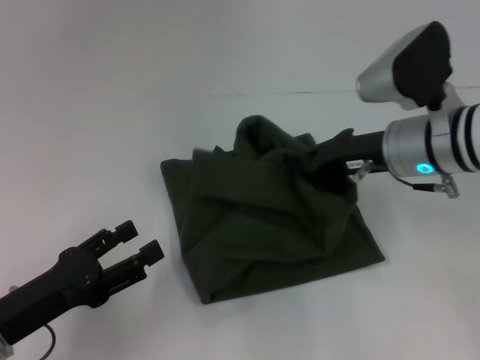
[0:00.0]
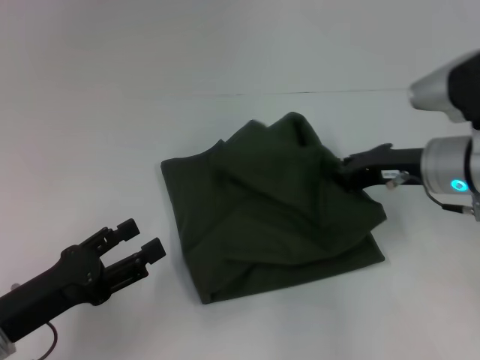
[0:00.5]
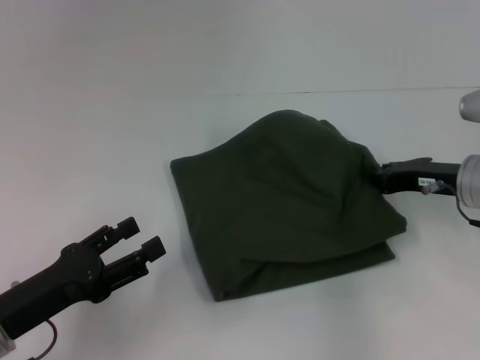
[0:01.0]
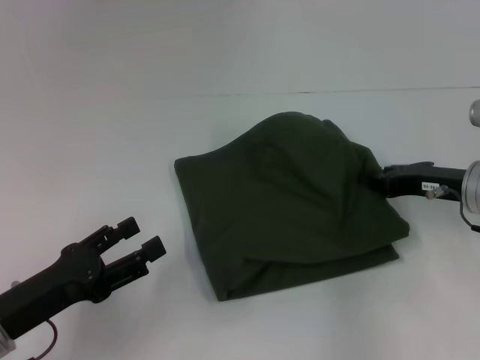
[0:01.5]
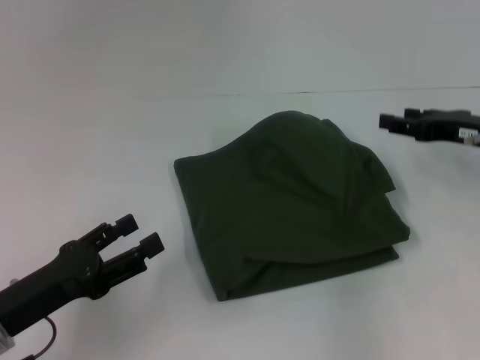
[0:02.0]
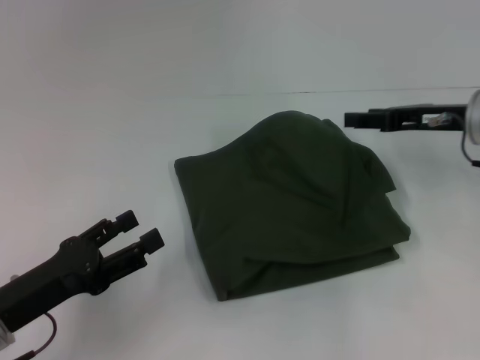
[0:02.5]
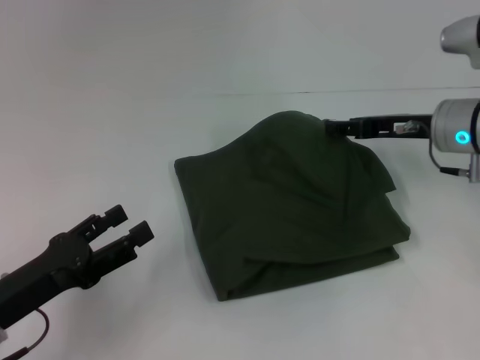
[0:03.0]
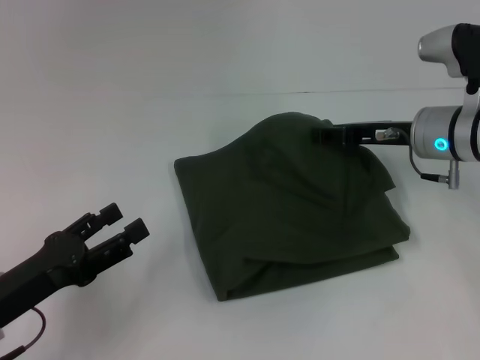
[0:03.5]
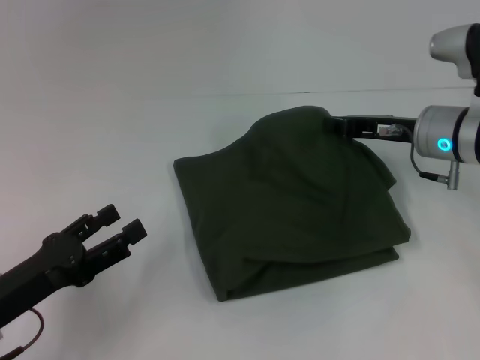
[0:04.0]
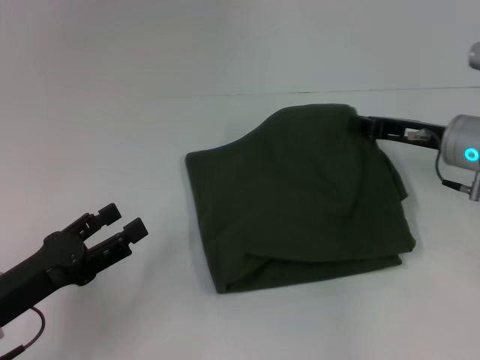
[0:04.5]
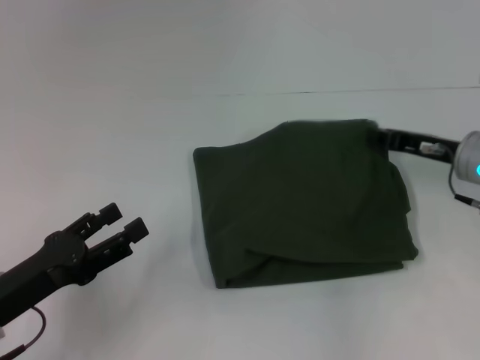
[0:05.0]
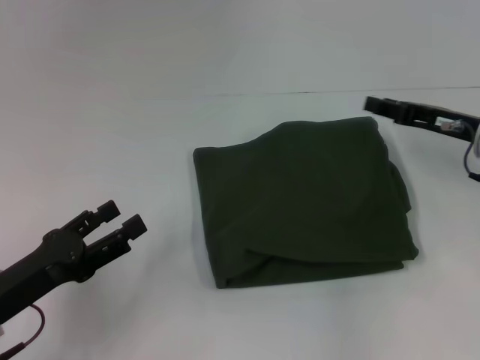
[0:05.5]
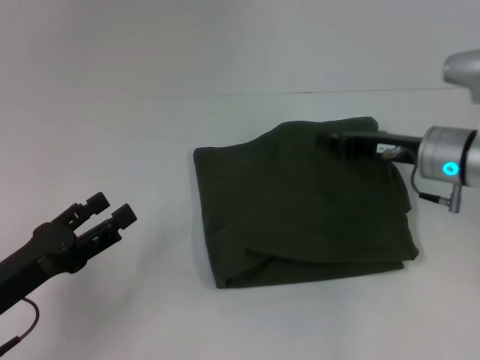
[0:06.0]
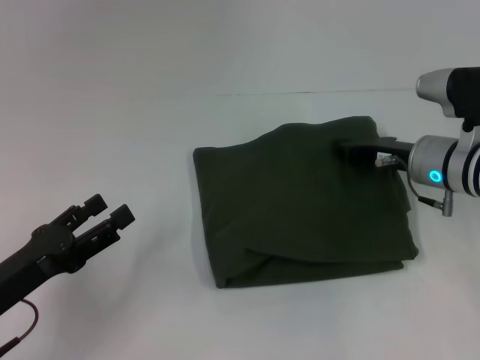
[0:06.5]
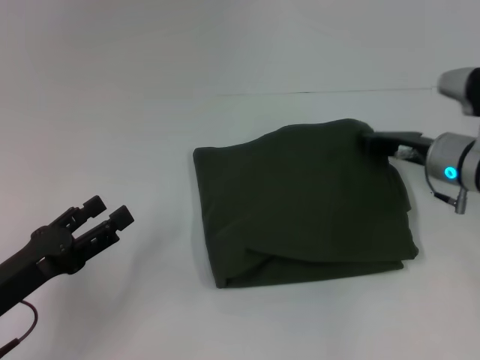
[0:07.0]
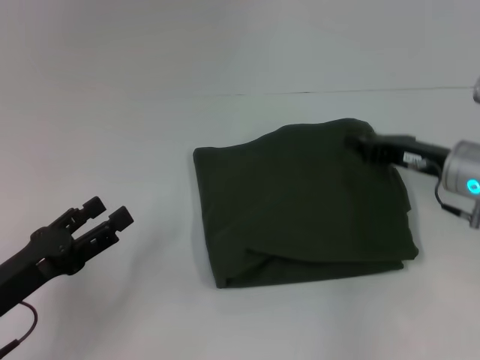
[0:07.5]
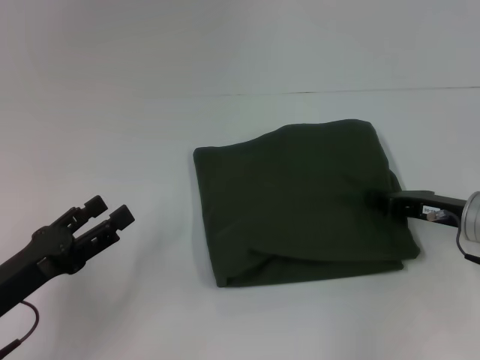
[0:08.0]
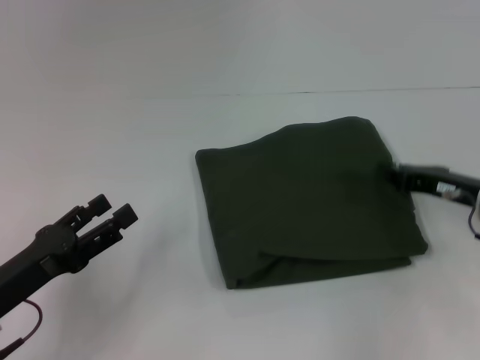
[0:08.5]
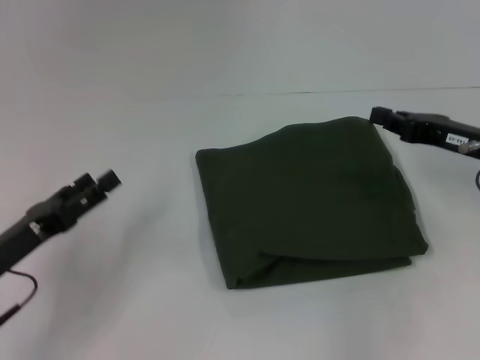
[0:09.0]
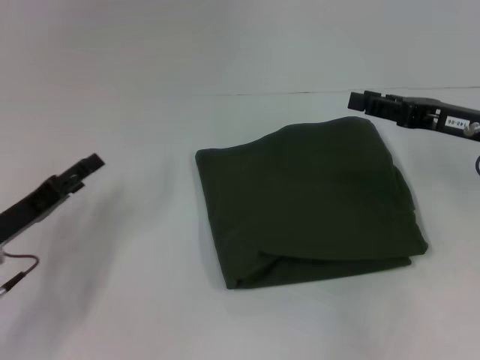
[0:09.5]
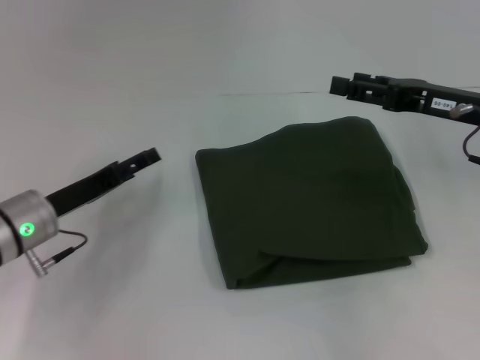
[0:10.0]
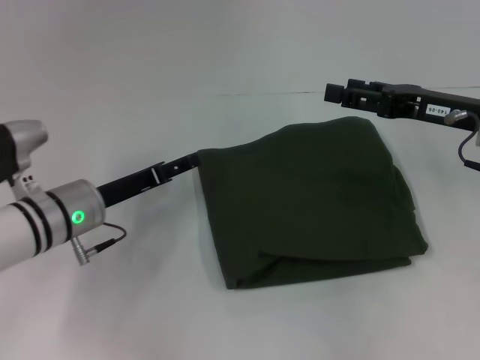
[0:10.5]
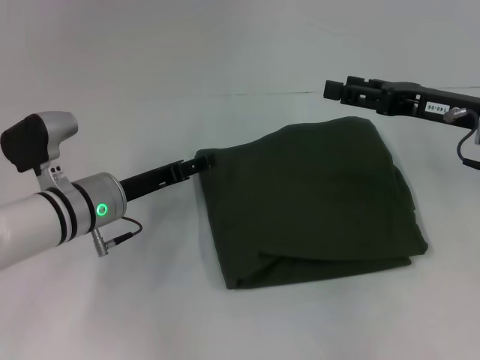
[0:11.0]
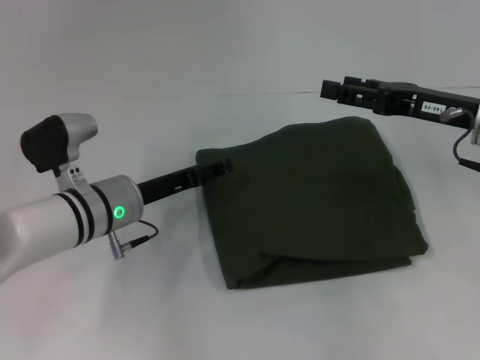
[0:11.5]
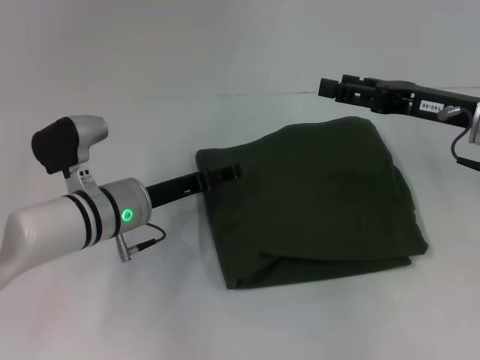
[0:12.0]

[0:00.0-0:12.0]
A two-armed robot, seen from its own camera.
0:00.0 to 0:02.0: The right gripper shifts approximately 10 cm to the right, and opens its fingers.
0:02.0 to 0:04.0: The right gripper moves to the left, about 10 cm, and closes its fingers.
0:06.0 to 0:08.0: The right gripper shifts approximately 5 cm downward.
0:08.0 to 0:10.0: The left gripper is displaced forward by approximately 10 cm. The right gripper heads upward, covering approximately 10 cm, and opens up.
0:10.0 to 0:12.0: The left gripper travels to the right by approximately 10 cm.

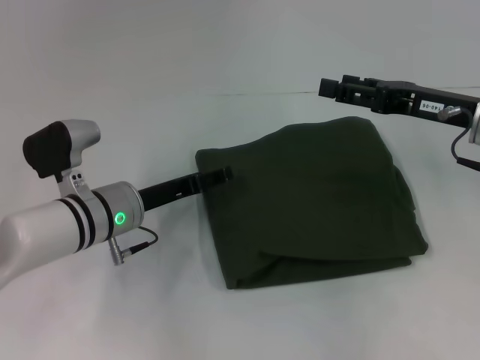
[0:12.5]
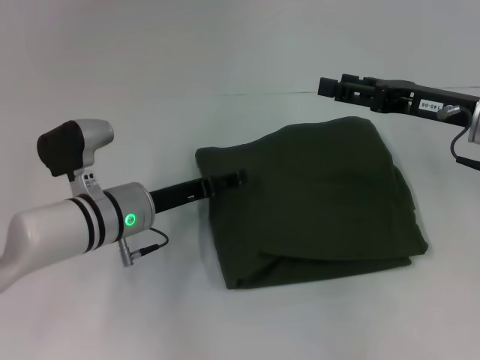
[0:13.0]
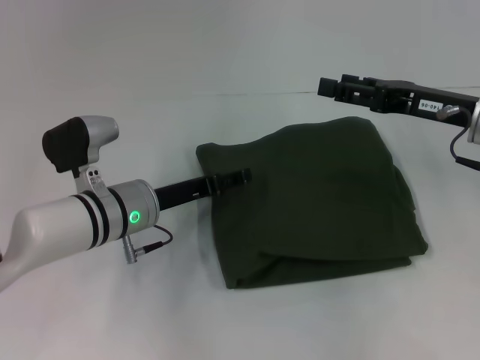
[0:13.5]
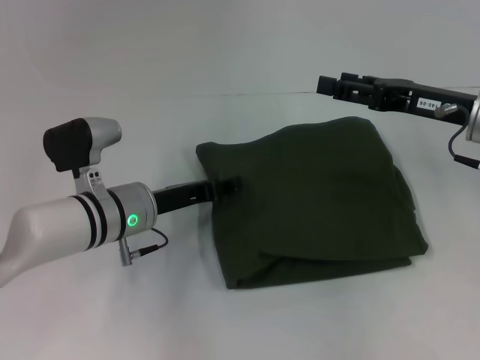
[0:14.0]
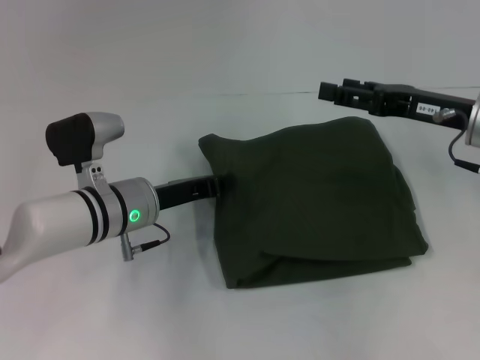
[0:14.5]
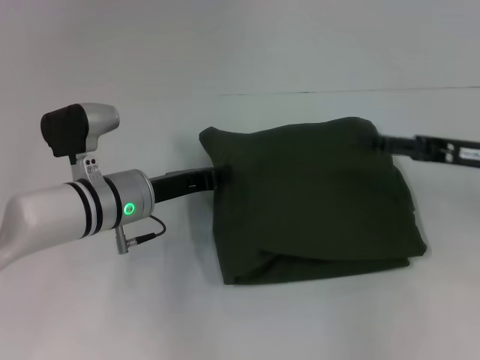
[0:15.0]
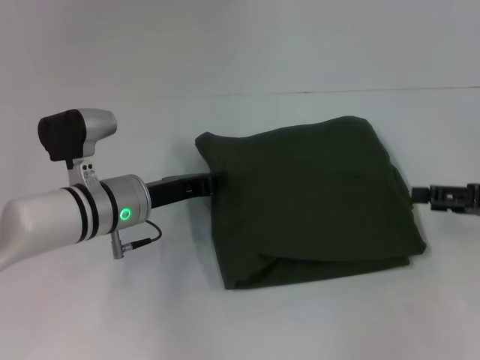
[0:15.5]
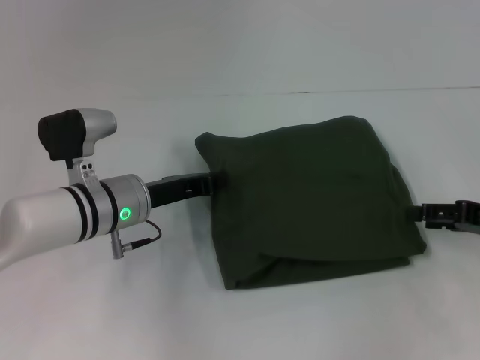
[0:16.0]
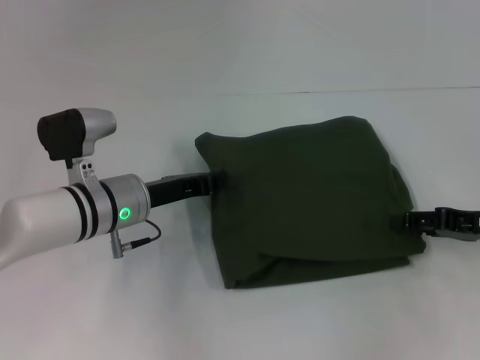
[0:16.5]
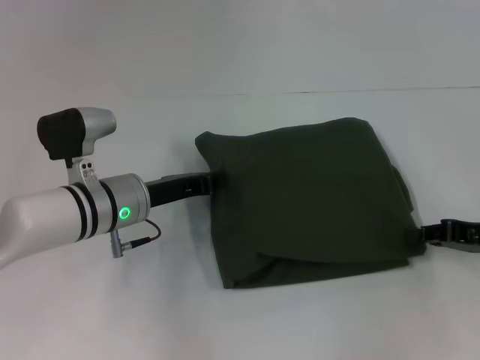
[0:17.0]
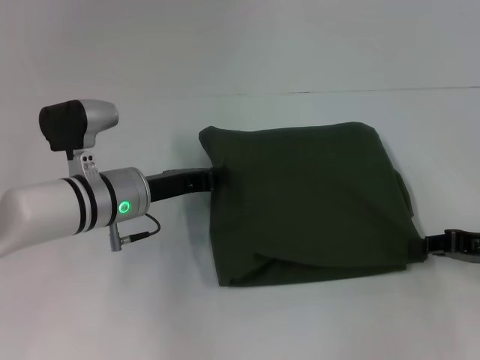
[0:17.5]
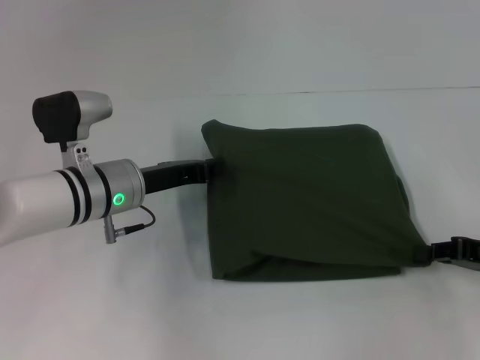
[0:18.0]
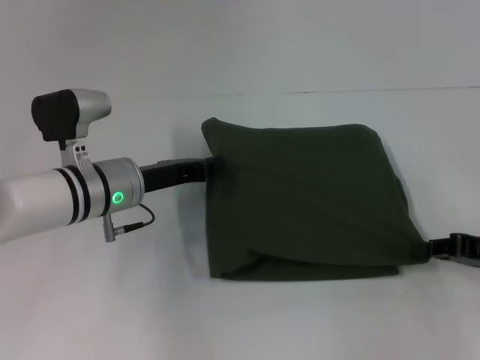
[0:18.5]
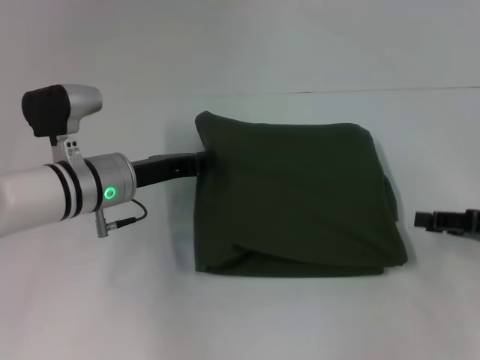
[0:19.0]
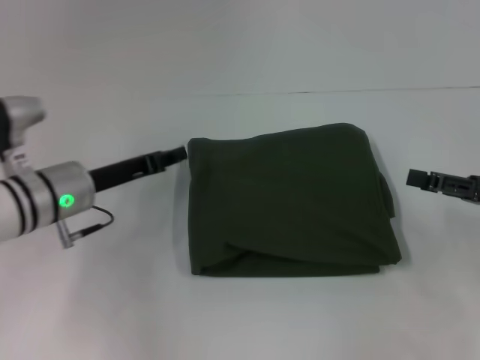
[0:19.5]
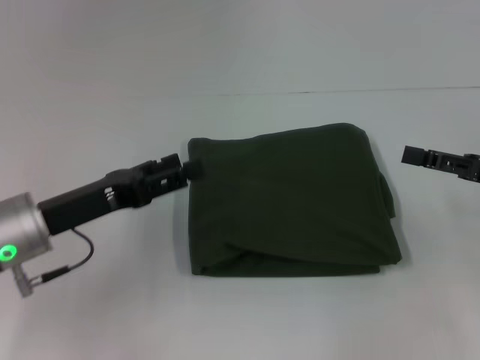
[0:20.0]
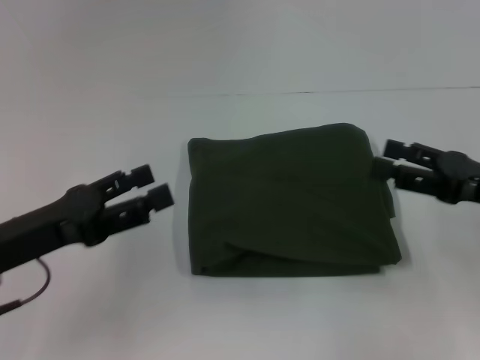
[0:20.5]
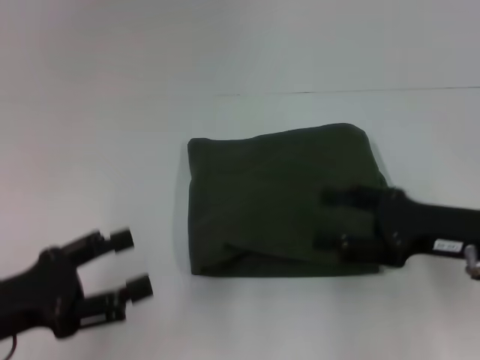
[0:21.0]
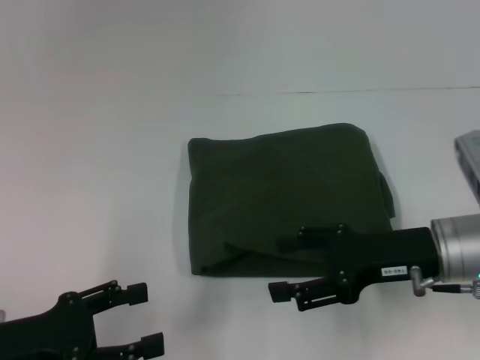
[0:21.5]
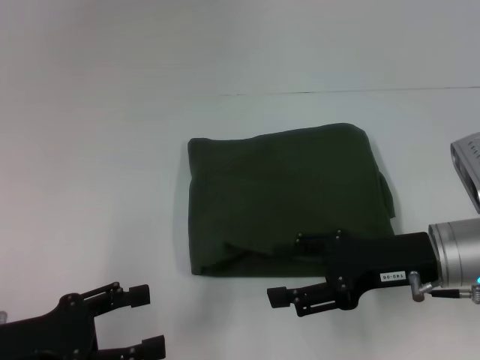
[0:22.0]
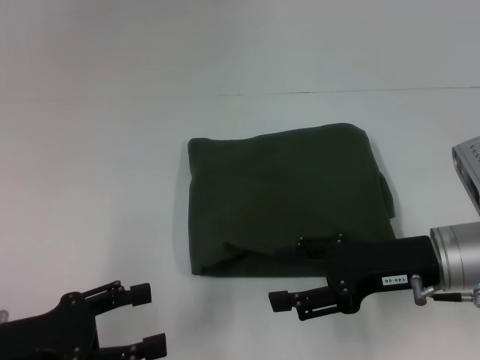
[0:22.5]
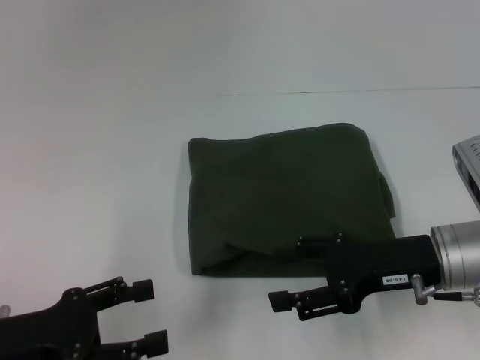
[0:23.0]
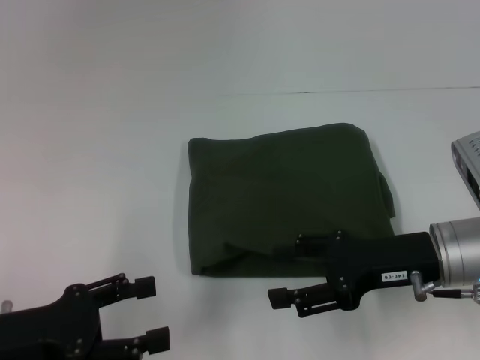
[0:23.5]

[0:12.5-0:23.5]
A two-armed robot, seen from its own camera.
0:12.5 to 0:14.5: The left gripper closes.
0:14.5 to 0:16.0: The right gripper shifts about 10 cm to the right, backward and downward.
0:16.0 to 0:18.0: The right gripper closes its fingers.
0:18.0 to 0:20.0: The right gripper moves upward, approximately 5 cm, and opens up, while the left gripper is displaced backward and to the left by approximately 10 cm, and opens up.
0:20.0 to 0:21.5: The right gripper is displaced to the left by roughly 10 cm. The left gripper travels backward by approximately 10 cm.
0:21.5 to 0:23.5: The two grippers keep their place.
